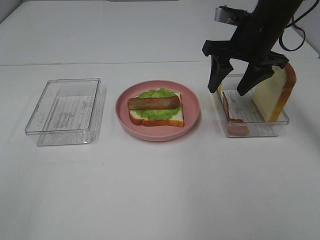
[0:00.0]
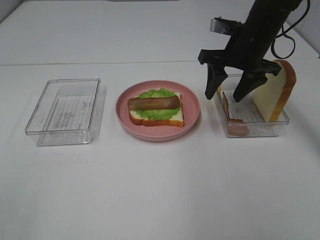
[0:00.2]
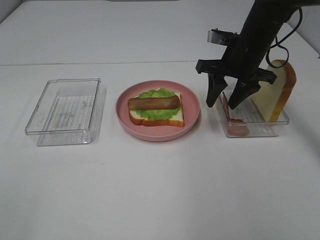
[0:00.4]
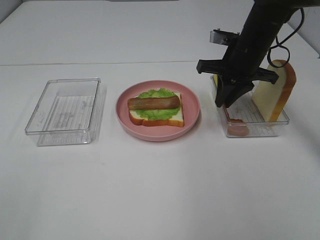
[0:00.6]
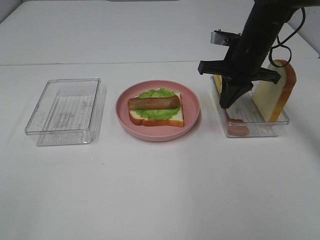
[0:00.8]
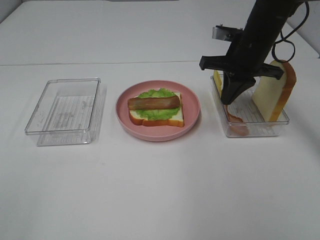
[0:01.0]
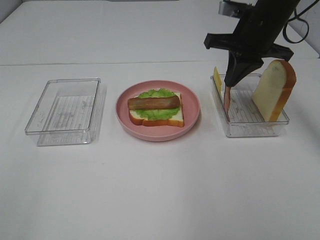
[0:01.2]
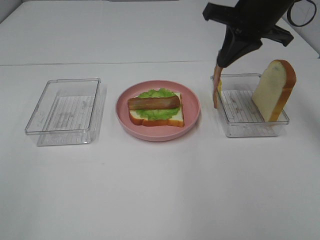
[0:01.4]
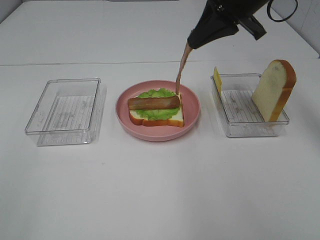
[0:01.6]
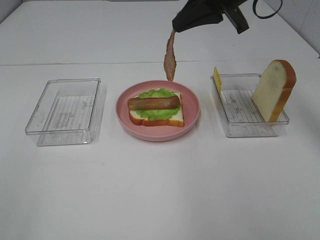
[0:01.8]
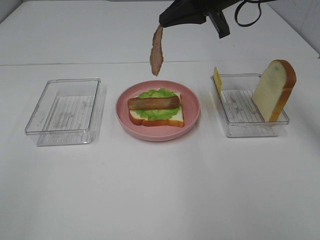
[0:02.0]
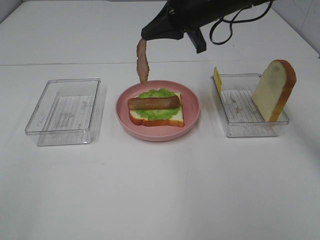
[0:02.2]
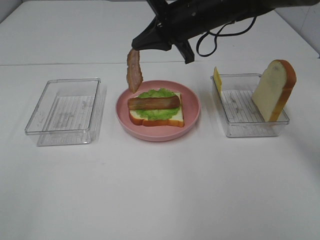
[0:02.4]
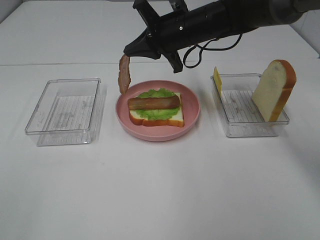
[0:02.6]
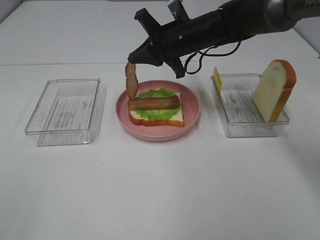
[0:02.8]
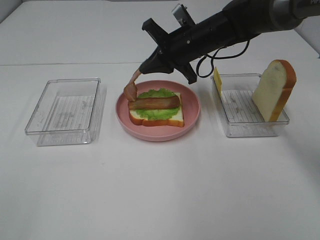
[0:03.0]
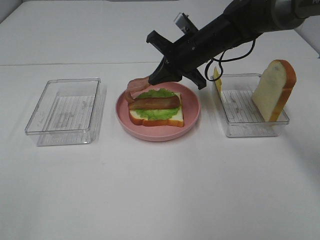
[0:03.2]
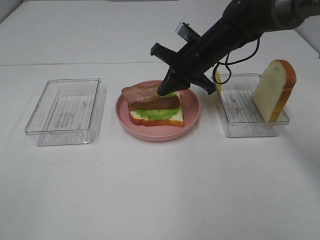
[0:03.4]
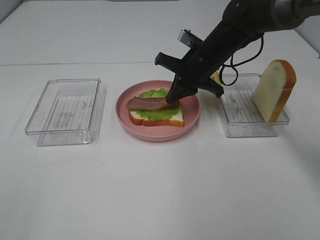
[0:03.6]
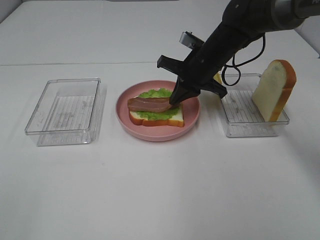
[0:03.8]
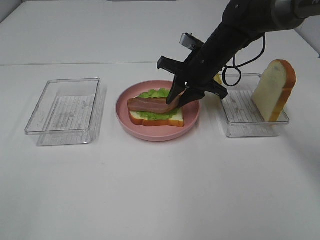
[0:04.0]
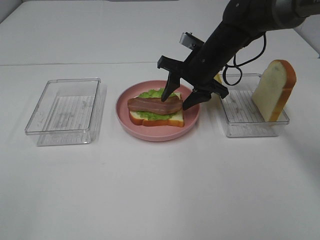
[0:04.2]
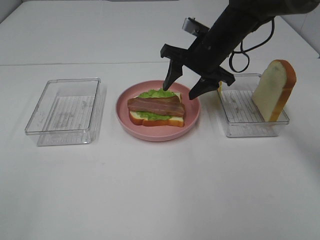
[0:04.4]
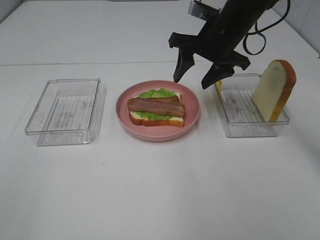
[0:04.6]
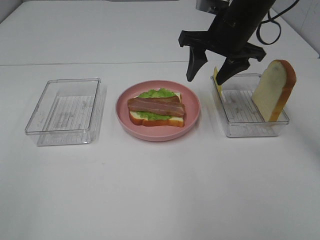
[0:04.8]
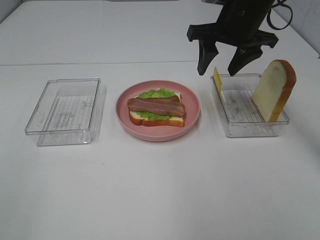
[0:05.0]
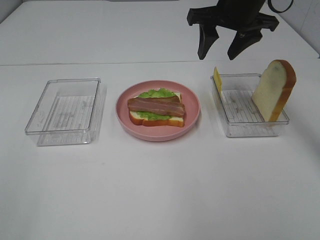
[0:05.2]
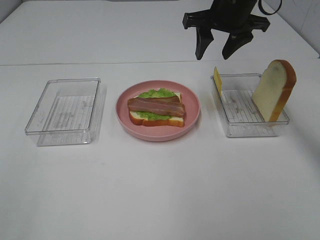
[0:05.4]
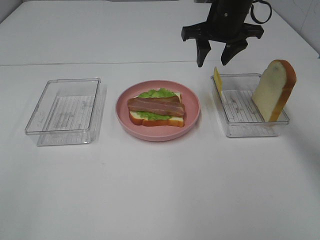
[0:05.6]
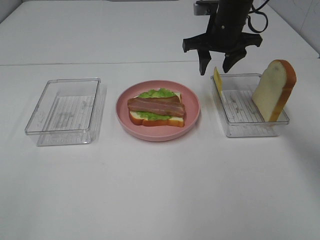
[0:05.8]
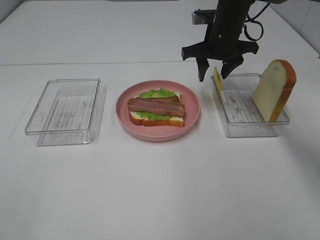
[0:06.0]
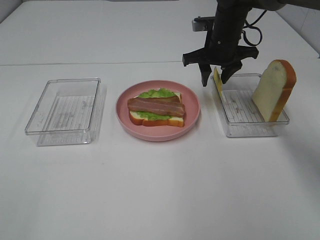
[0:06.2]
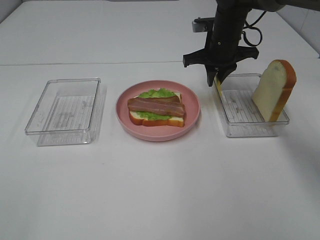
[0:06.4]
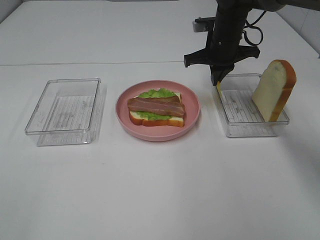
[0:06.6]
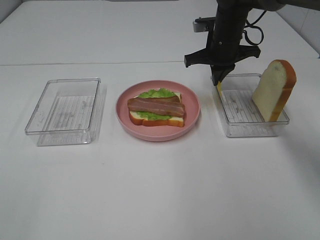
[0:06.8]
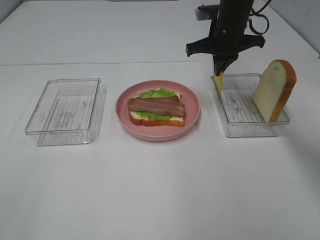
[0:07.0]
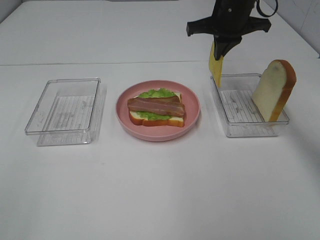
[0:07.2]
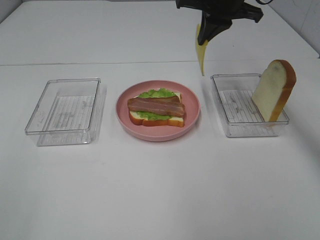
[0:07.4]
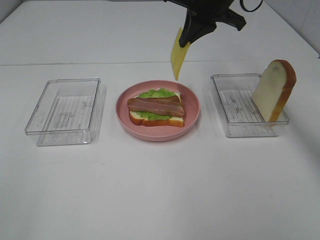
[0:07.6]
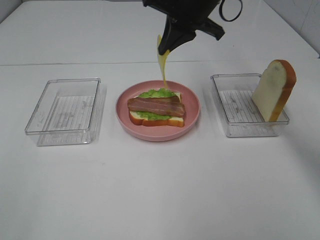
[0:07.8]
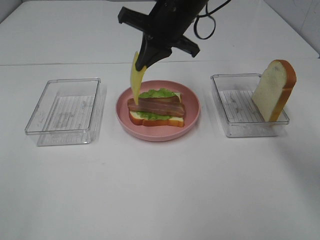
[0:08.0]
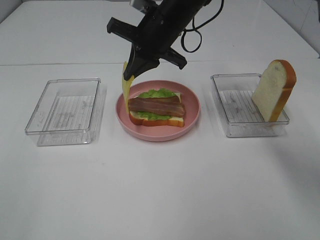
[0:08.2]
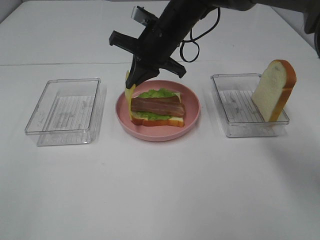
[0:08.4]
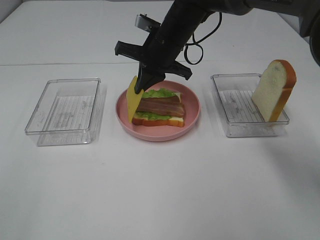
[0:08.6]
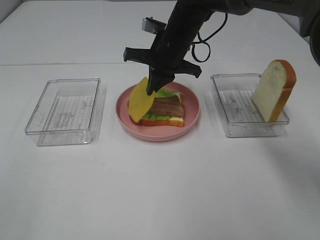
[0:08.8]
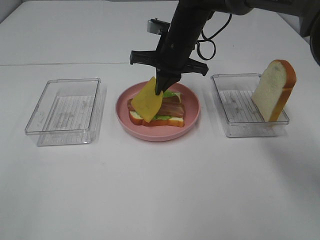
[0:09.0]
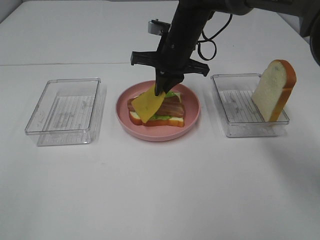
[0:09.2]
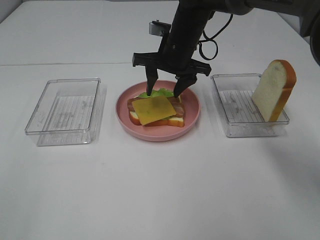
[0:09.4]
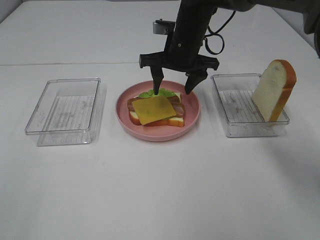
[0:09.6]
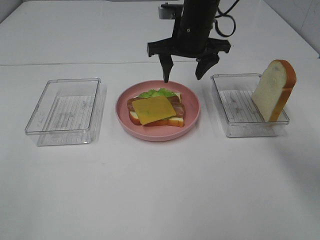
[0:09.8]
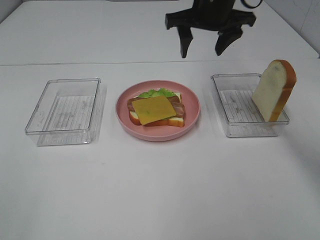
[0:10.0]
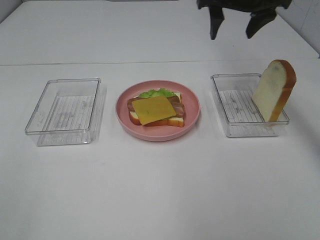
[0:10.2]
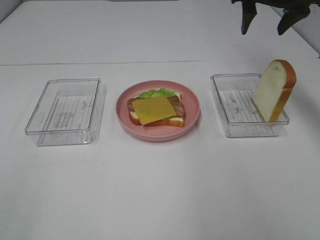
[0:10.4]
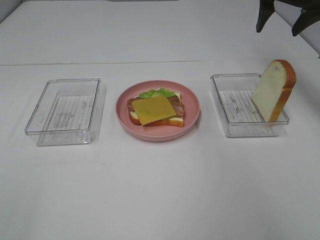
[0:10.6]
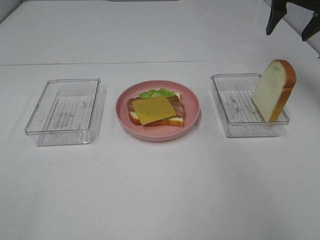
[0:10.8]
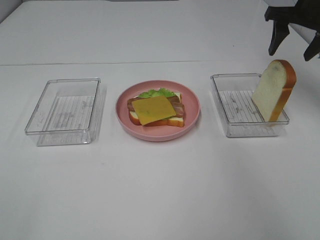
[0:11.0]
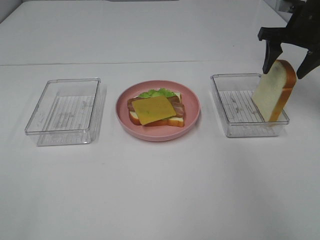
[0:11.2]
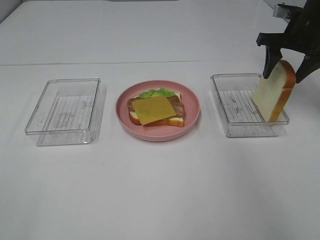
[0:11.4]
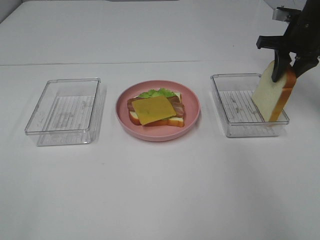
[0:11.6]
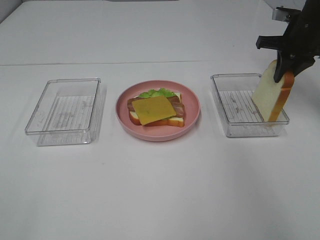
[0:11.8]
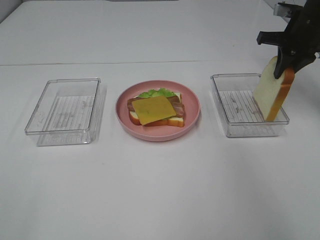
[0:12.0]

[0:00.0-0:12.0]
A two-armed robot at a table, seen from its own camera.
Task of the whole recording: Make sandwiches.
Step, 0:00.8 to 0:04.2: Right hand:place bacon on bacon.
Step, 0:04.4 to 0:06.8: Right hand:grab the cheese slice.
Step, 0:07.0 to 0:09.6: Right hand:place the cheese slice on top of the bacon.
Step, 0:09.8 to 0:11.6: Right hand:grab the bread slice.
0:00.0 to 0:01.6: The right gripper travels upward by roughly 10 cm, and closes its fingers.
0:01.6 to 0:03.0: The right gripper travels downward, to the left and forward by approximately 15 cm.
0:03.0 to 0:04.4: The right gripper opens.
0:04.4 to 0:06.0: The right gripper travels forward by about 5 cm, and travels upward and back again, roughly 10 cm each way.
0:06.0 to 0:07.6: The right gripper shifts some 10 cm upward, and closes up.
0:07.6 to 0:09.0: The right gripper shifts some 10 cm downward and to the left.
0:09.0 to 0:10.4: The right gripper is displaced to the right and upward by about 20 cm, and opens.
0:10.4 to 0:12.0: The right gripper goes some 10 cm downward and to the right, and closes.

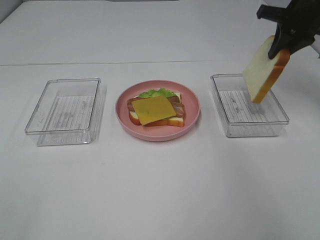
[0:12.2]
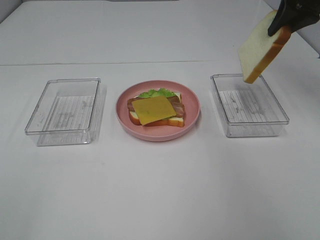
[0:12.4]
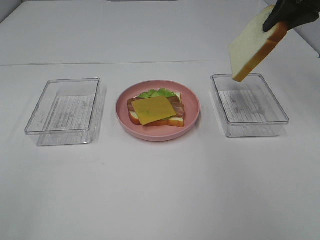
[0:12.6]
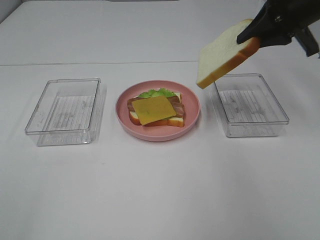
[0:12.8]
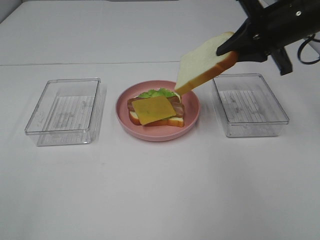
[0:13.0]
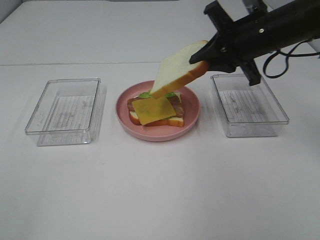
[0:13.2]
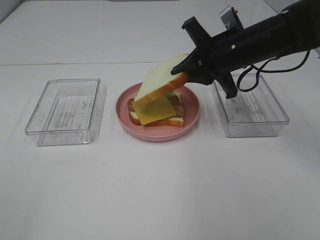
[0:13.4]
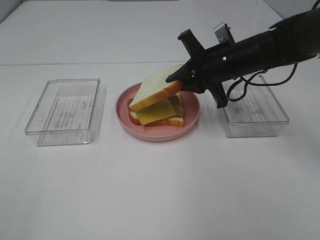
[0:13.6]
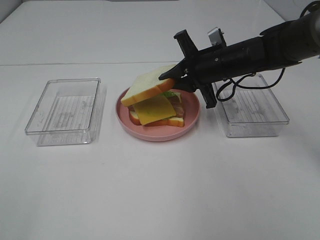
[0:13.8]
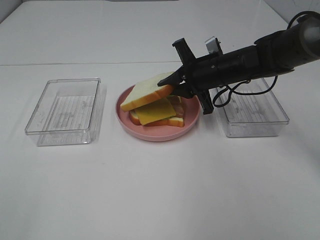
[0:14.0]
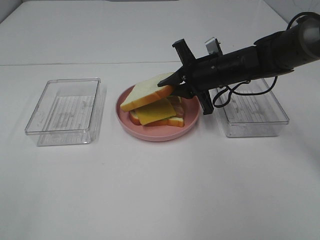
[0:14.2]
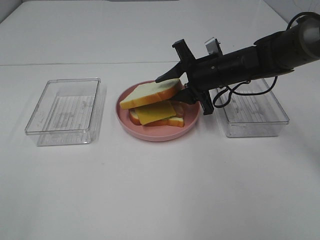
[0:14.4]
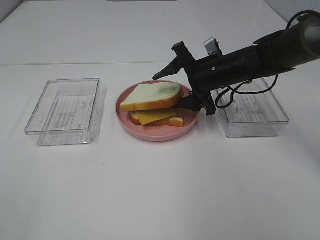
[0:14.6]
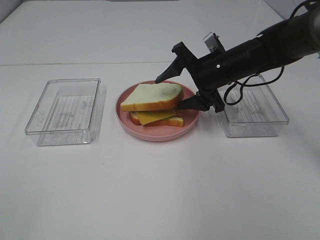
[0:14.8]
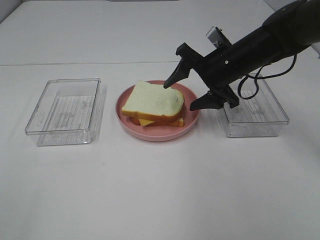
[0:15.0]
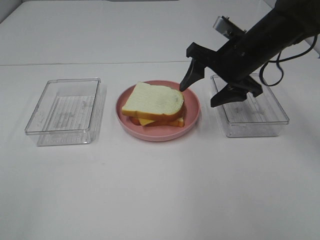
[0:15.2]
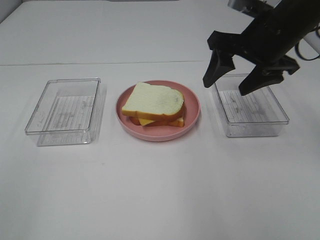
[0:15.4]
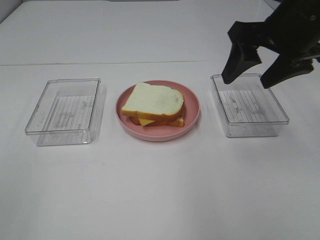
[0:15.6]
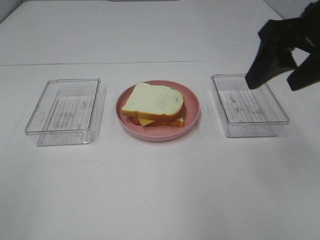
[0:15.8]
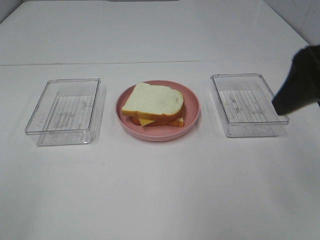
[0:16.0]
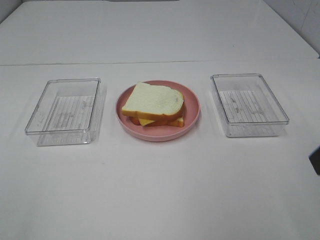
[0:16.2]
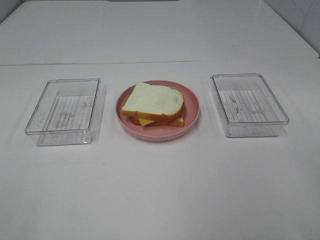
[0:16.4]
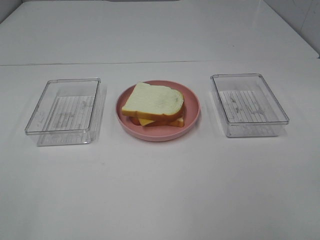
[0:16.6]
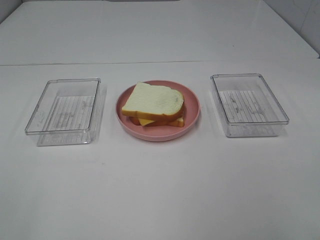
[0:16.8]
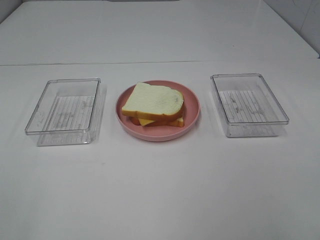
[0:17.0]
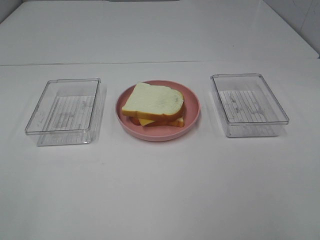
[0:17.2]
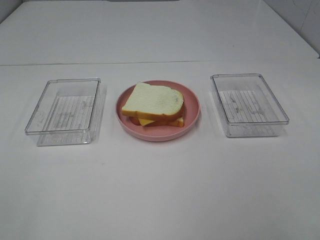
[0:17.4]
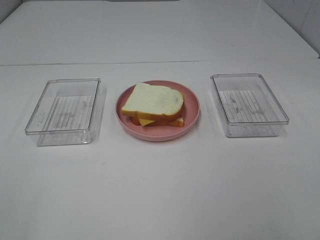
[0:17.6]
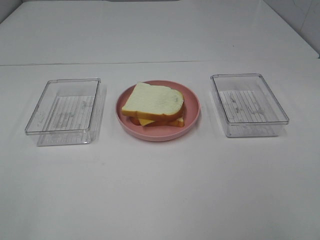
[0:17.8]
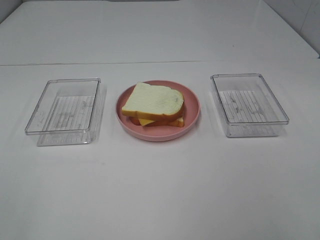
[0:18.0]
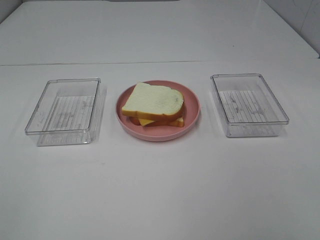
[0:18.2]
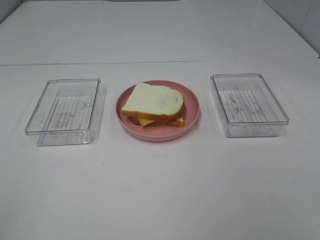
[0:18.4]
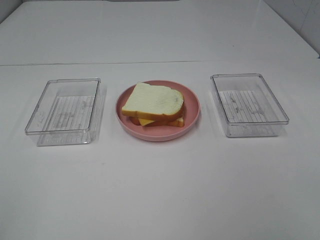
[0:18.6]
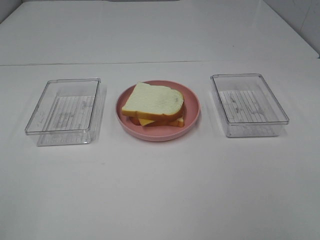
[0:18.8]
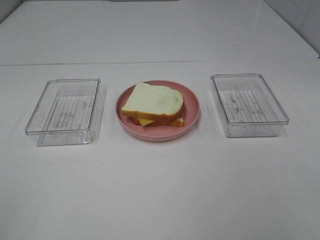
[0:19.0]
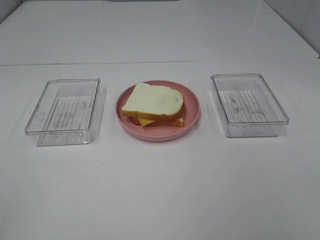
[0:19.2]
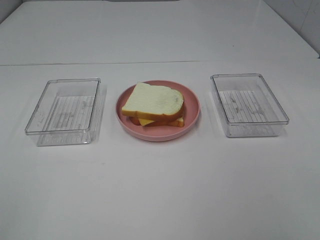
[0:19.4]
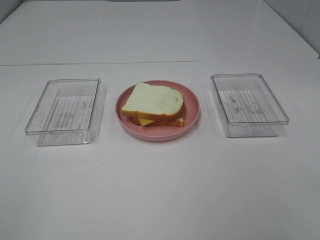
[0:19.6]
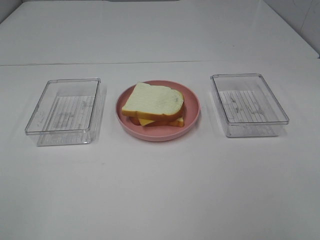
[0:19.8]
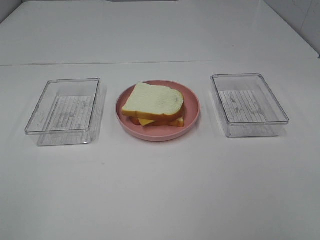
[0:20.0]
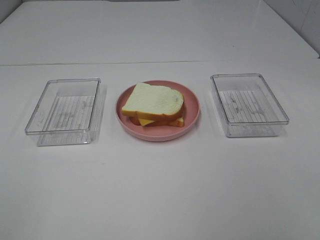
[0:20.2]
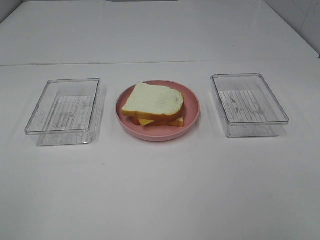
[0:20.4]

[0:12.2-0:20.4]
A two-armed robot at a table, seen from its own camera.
Task of the whole recording: Make sandwiches.
Step, 0:12.2 to 0:15.0: Right hand:place the bread slice on the cheese slice.
0:12.2 to 0:13.8: The right gripper is displaced to the left and downward by some 20 cm.
0:13.8 to 0:15.4: The right gripper travels upward and backward by some 15 cm, and opens.
0:15.4 to 0:17.2: The right gripper travels backward by some 30 cm.
0:18.8 to 0:20.4: Both grippers stay put.

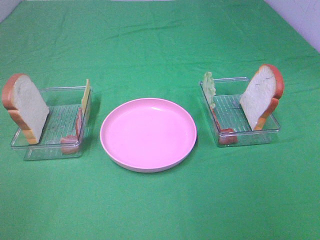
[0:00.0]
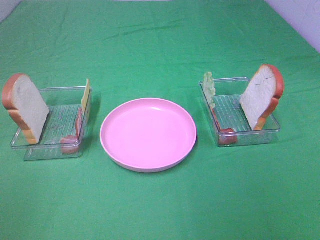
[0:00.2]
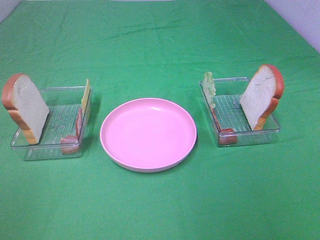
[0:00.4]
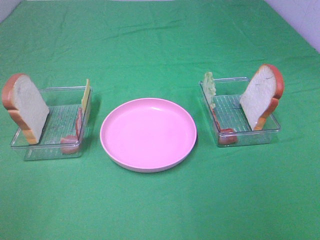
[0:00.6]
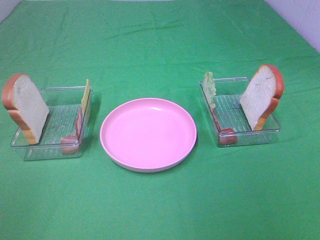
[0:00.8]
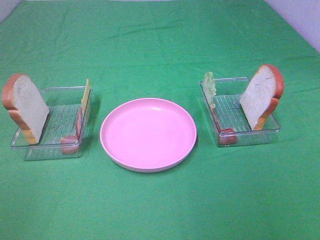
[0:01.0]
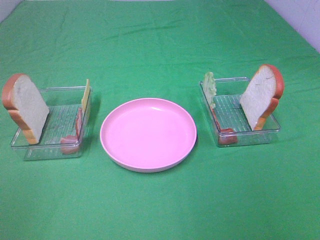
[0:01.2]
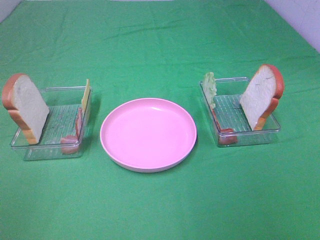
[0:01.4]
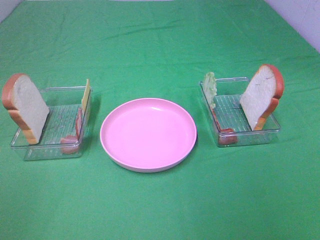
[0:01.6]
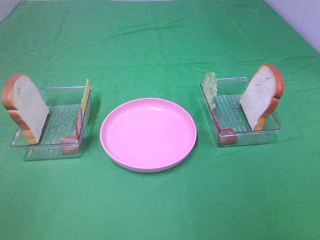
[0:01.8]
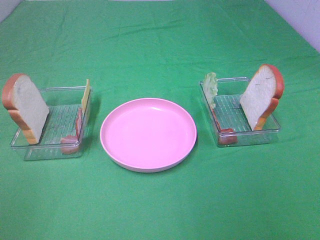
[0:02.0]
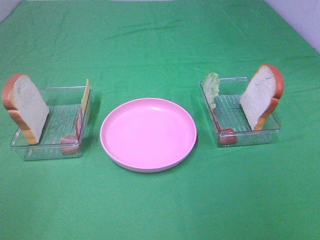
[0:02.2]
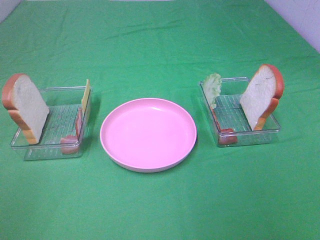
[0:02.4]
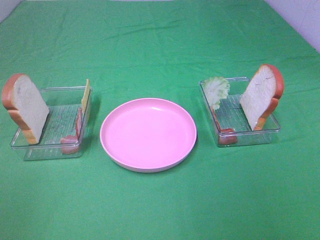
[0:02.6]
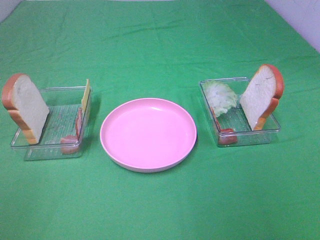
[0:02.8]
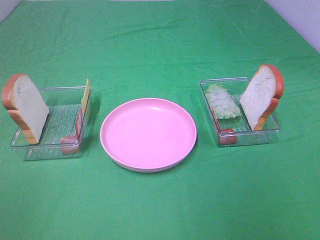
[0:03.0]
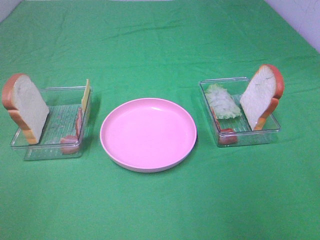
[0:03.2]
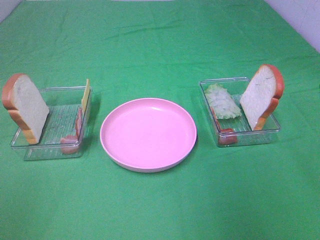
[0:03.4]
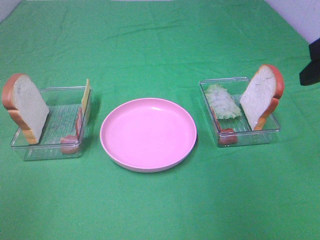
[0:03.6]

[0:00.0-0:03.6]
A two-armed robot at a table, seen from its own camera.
Task of the whole recording: Make sandwiches.
0:00.0 to 0:01.8: The two grippers keep their place.
0:01.8 to 0:03.6: The right gripper moves forward, approximately 25 cm.
